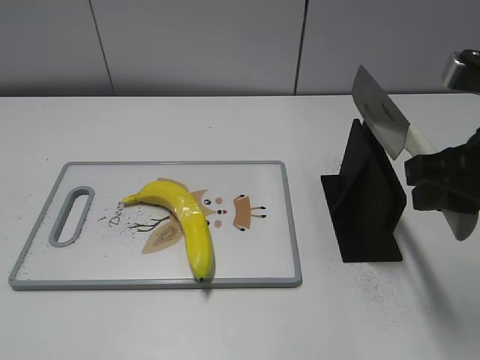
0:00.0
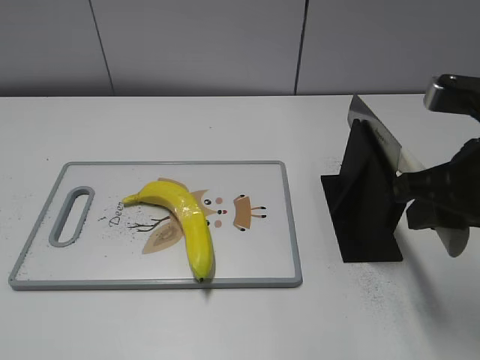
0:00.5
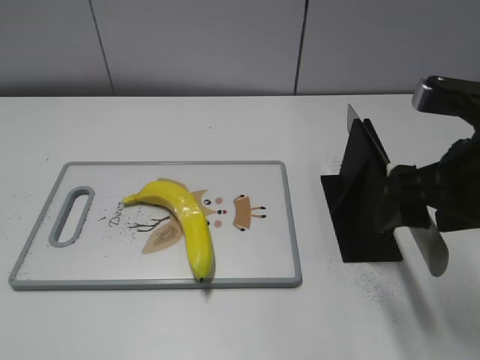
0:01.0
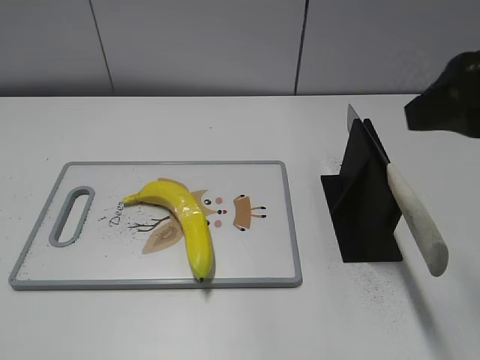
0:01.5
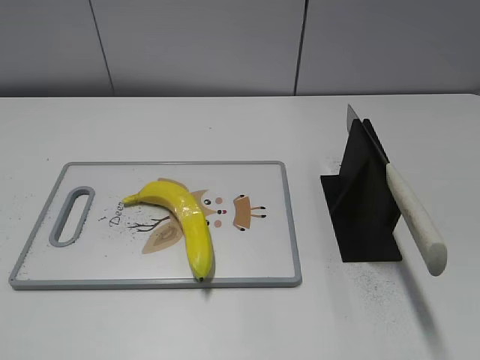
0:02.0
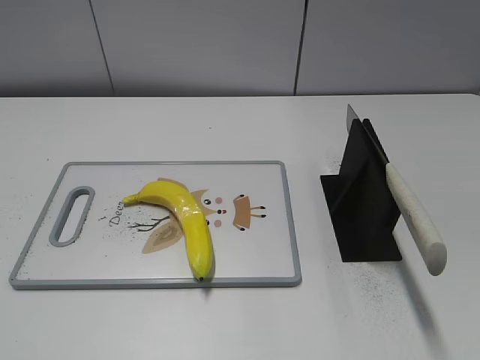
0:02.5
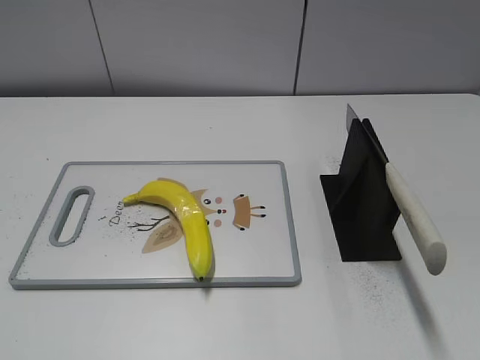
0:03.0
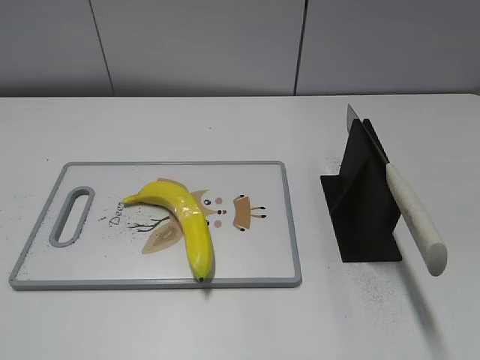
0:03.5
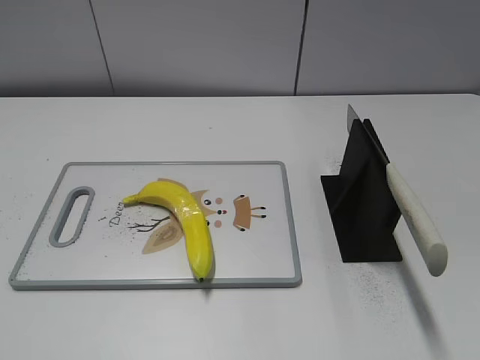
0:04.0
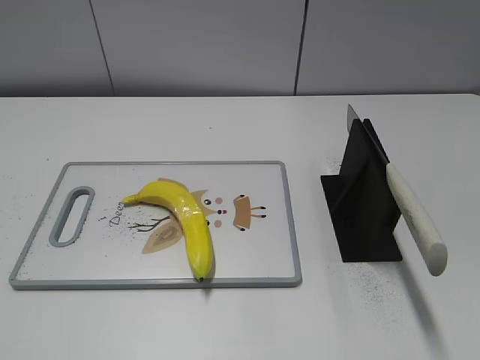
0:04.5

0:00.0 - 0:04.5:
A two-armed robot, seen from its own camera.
Task of the whole recording: cut plastic banana.
Step, 0:00.0 - 0:04.5: Place the knife on the storage rack with your right hand.
0:00.0 - 0:02.0: The right gripper travels backward by roughly 15 cm, and opens.

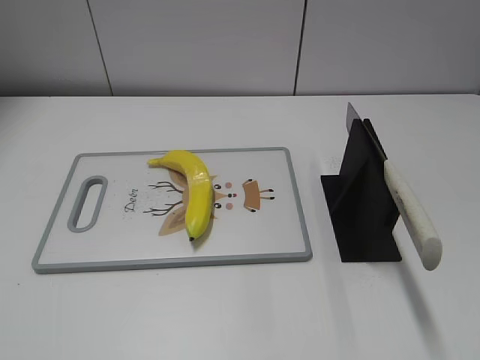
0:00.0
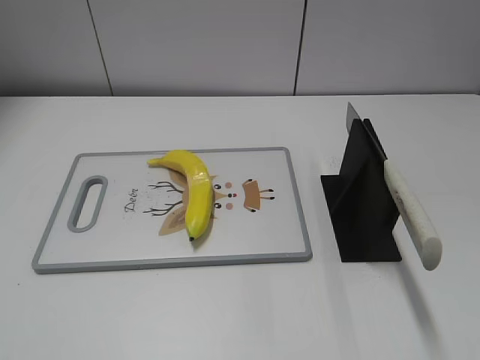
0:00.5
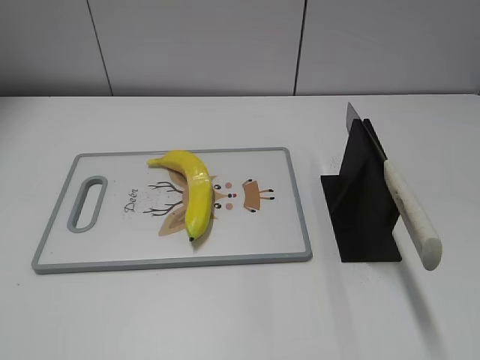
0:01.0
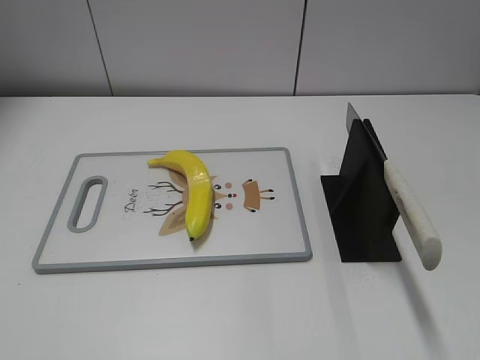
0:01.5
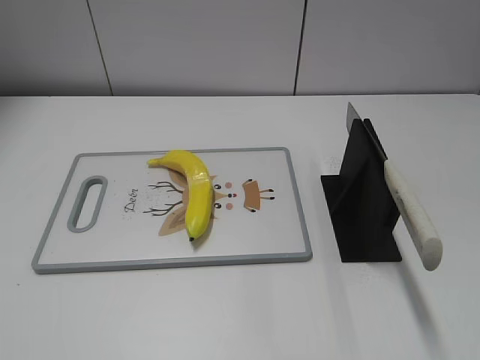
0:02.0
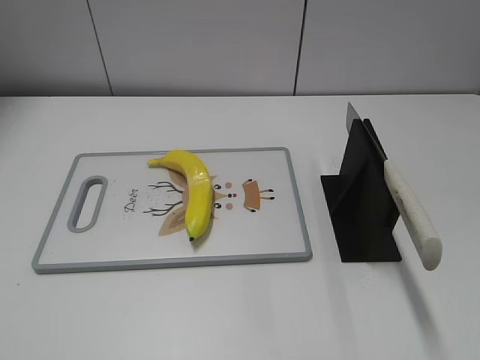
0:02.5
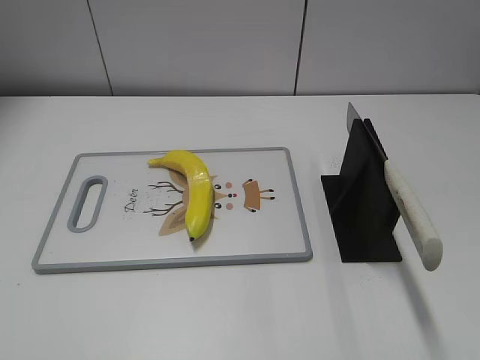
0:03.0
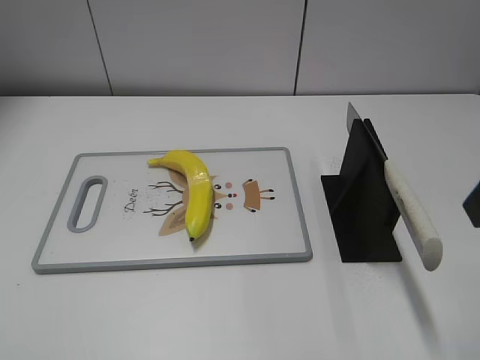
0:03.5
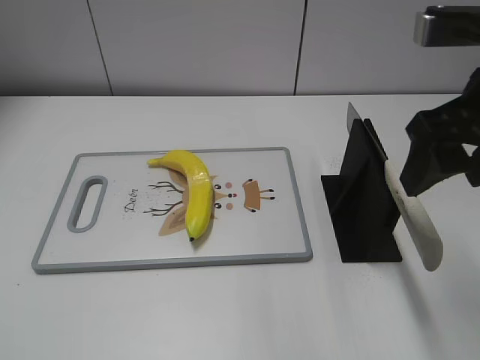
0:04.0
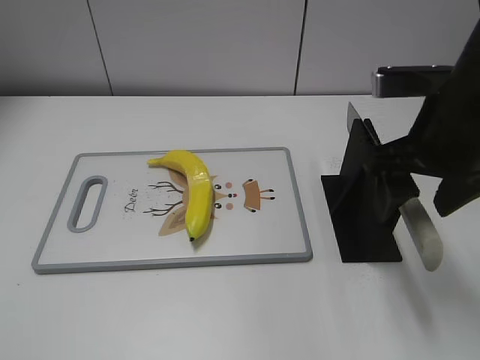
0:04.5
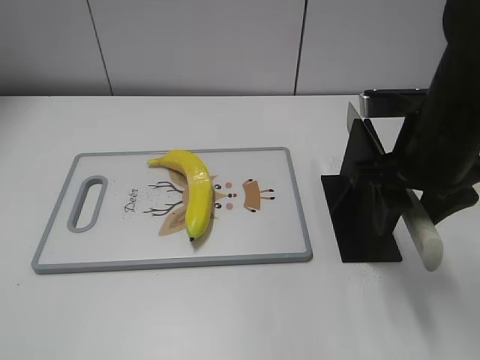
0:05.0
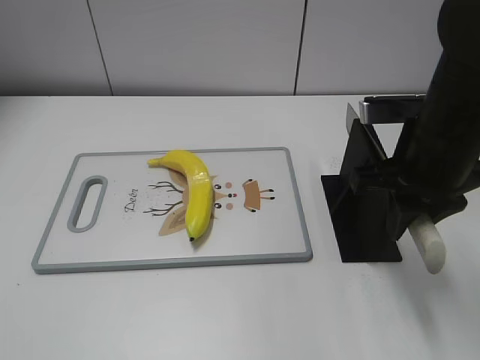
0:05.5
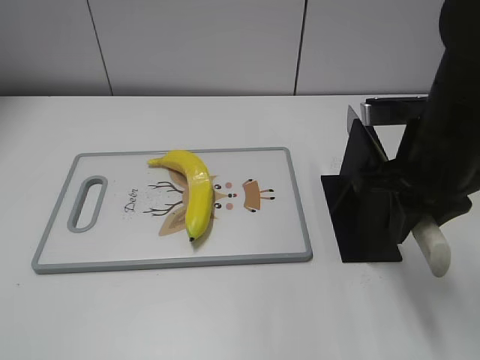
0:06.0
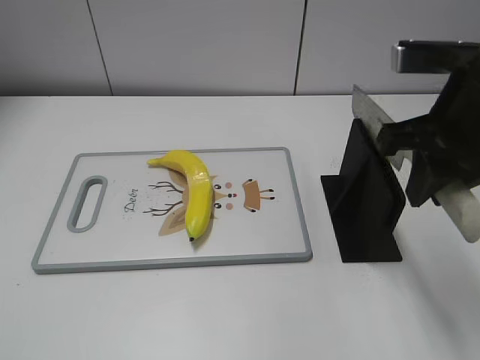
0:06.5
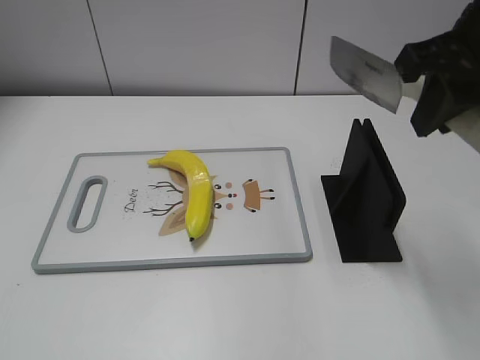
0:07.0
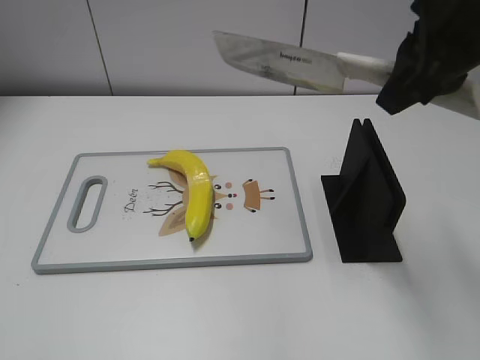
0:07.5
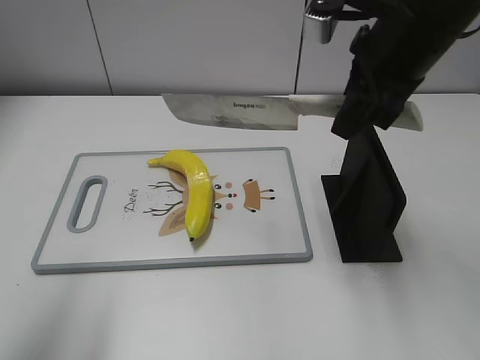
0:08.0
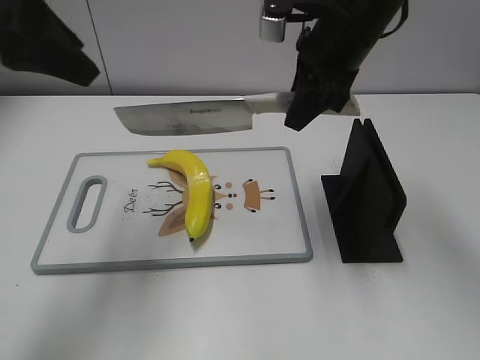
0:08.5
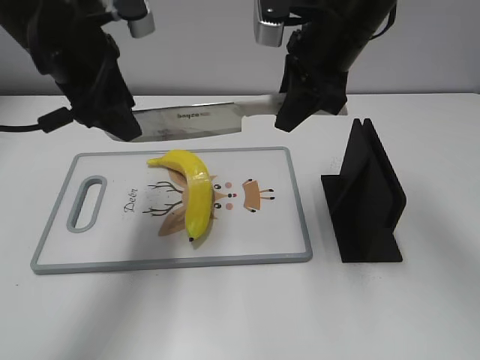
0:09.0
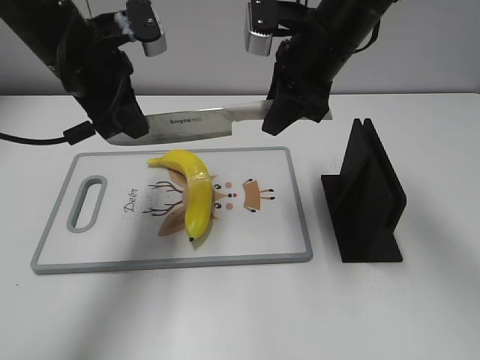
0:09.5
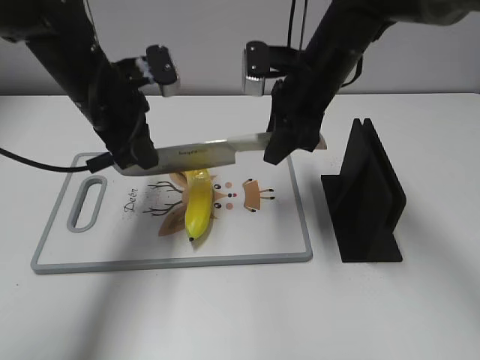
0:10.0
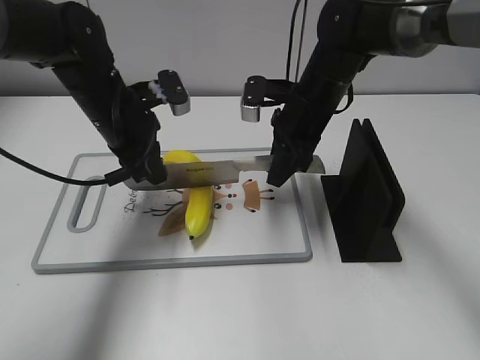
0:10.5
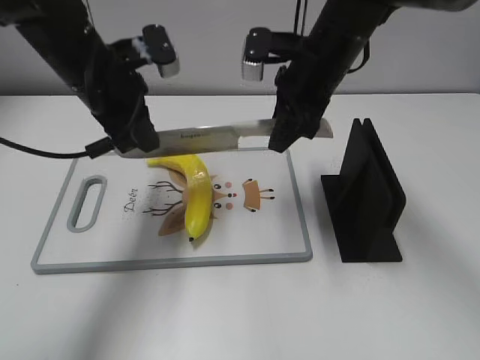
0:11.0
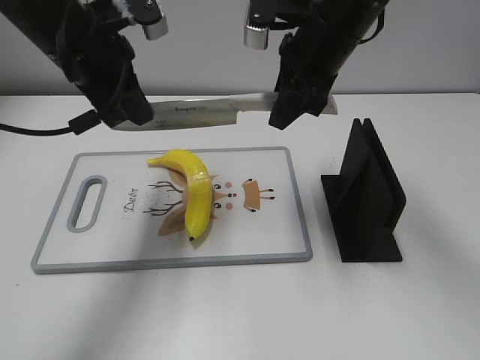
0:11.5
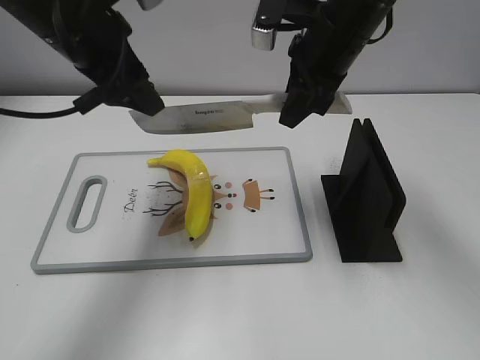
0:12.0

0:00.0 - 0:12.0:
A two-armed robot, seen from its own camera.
Task of the whole recording: cut plastic banana.
Step, 0:00.0 - 0:06.5: Grab the knife handle with your right hand.
Step, 0:07.0 - 0:11.5: Lift the knife with your right hand.
0:02.0 - 0:04.0: The right gripper goes roughly 25 cm forward and to the left.
0:04.0 - 0:06.0: The right gripper heads downward, covering about 10 cm, and closes up.
0:06.0 - 0:08.0: The left gripper goes roughly 20 cm forward and upward; the right gripper travels upward by about 10 cm.
0:08.0 - 0:10.0: The right gripper heads downward, forward and to the left, covering some 15 cm; the left gripper moves forward, downward and to the right, approximately 30 cm, and closes.
0:10.0 - 0:12.0: The grippers both shift upward by roughly 5 cm. The left gripper opens its fingers.

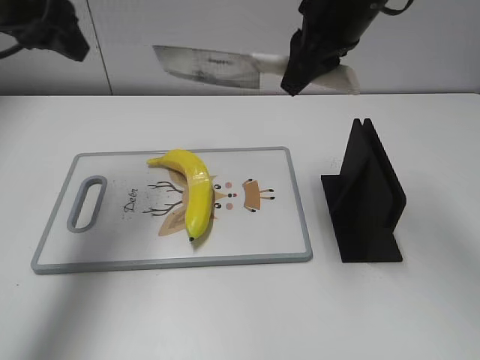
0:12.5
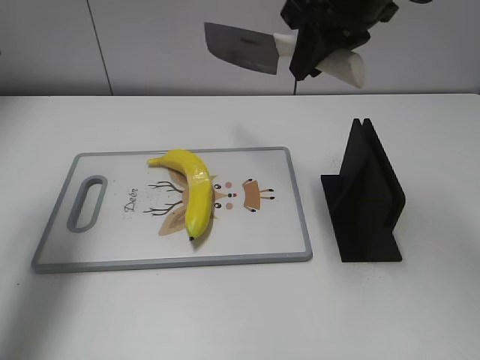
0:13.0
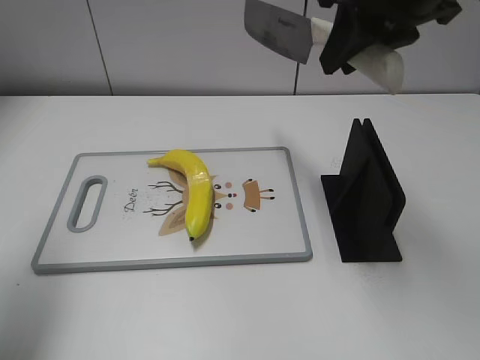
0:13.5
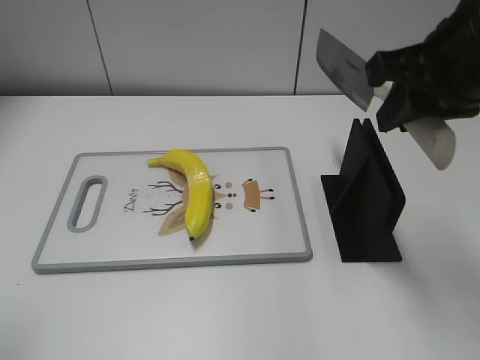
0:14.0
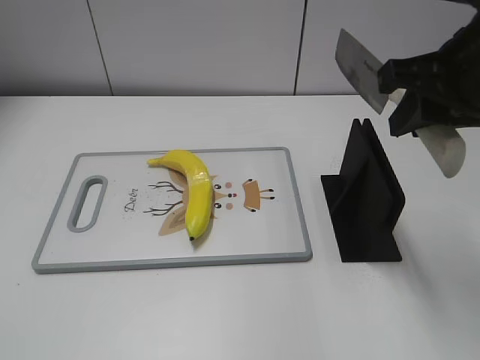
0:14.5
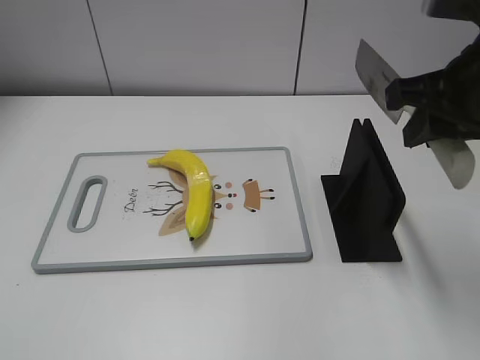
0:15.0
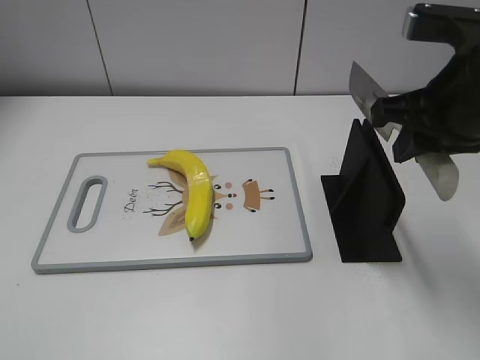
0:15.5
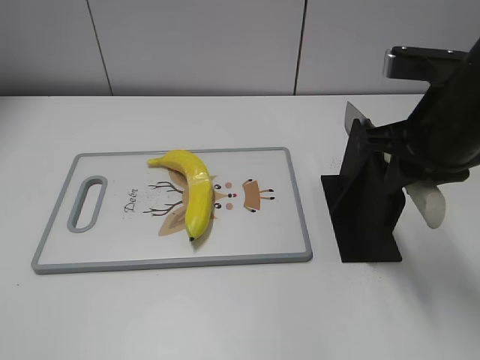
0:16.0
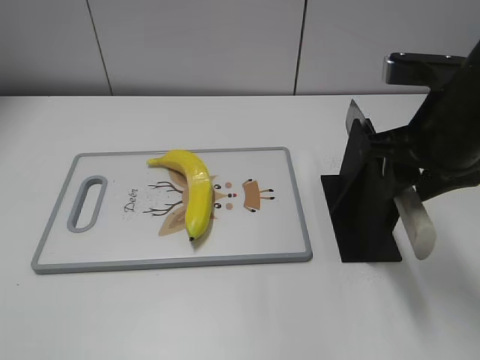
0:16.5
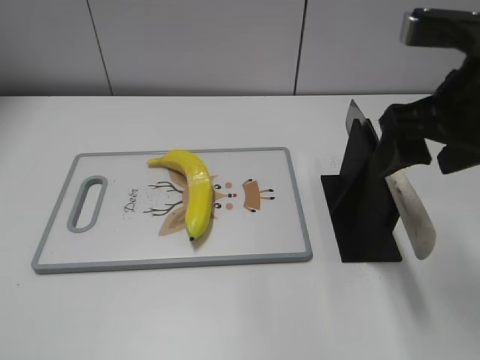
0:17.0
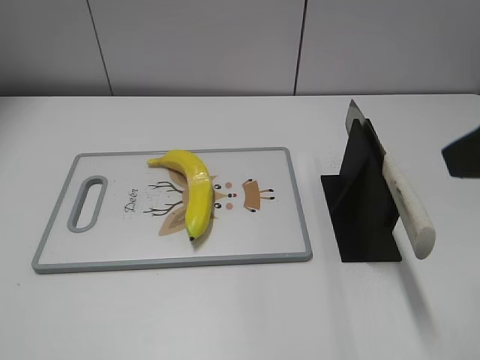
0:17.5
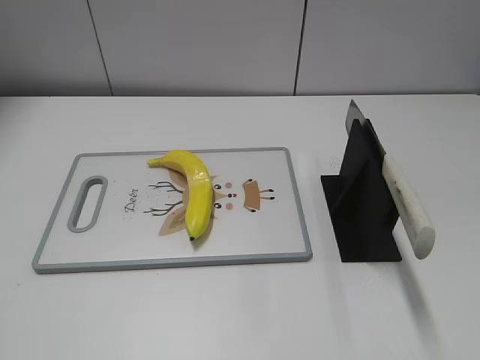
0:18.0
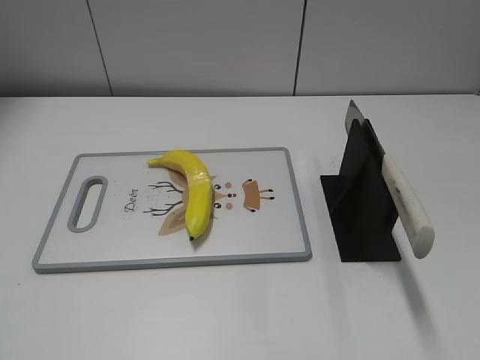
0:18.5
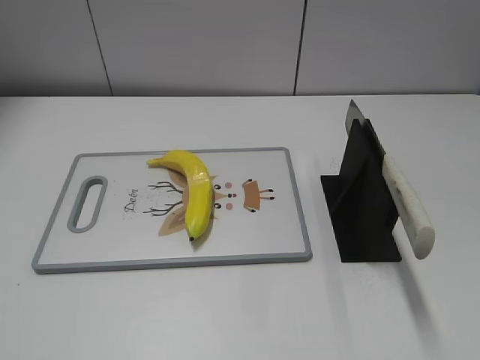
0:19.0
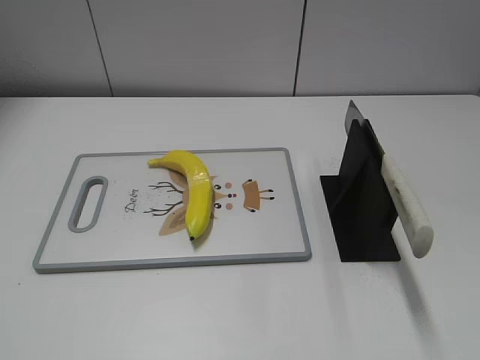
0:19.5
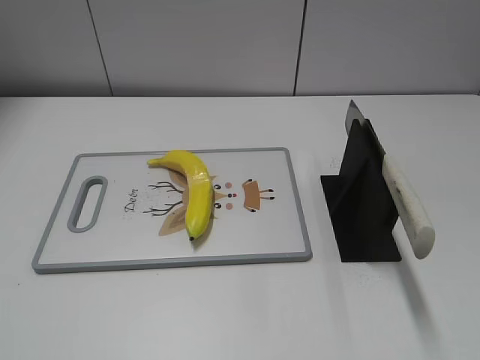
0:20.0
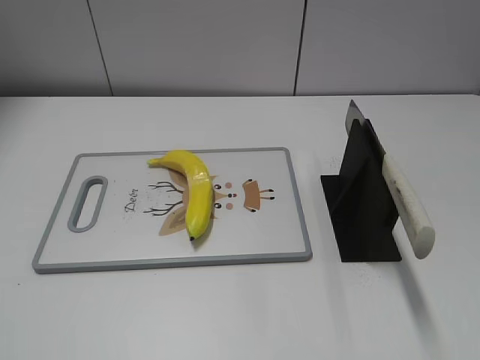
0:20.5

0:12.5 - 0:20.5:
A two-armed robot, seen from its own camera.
Task of the whole recording: cut plastic banana.
Step, 0:13.5 - 0:14.5: Secure the blade with your left hand.
Step, 0:15.0 - 0:20.5: Place the knife on the storage rack with your right hand.
0:12.5 - 0:14.5: The left gripper travels backward by approximately 35 cm; the right gripper goes about 15 cm backward and to the right.
0:14.5 - 0:16.5: The right gripper is displaced downward by some 5 cm.
0:16.5 - 0:18.5: The right gripper goes approximately 30 cm backward and to the right, and opens its fingers.

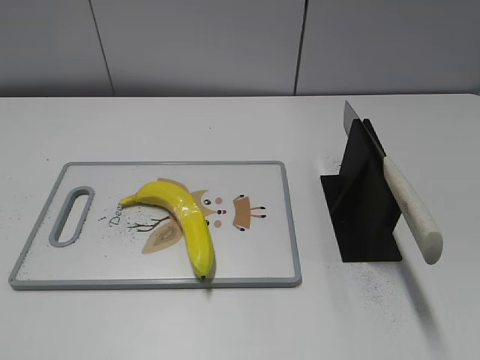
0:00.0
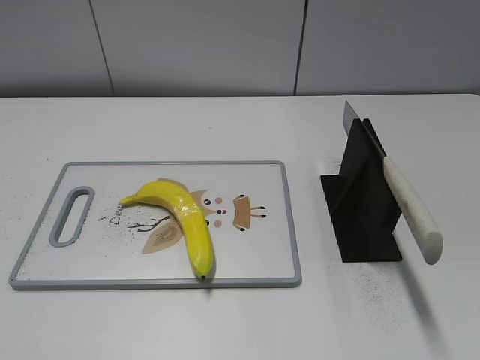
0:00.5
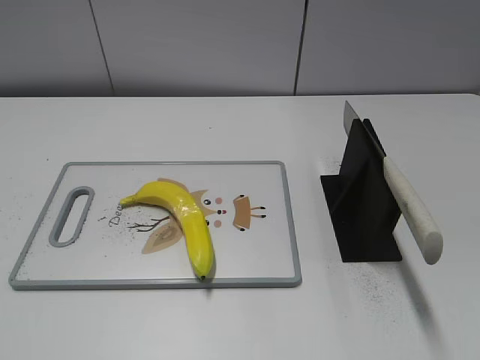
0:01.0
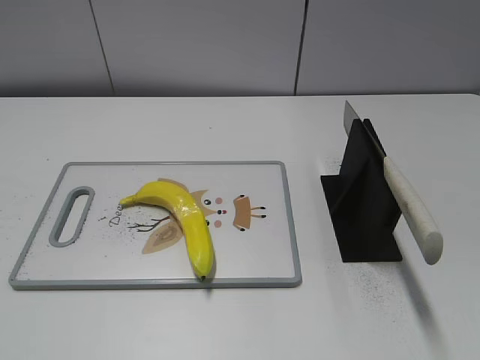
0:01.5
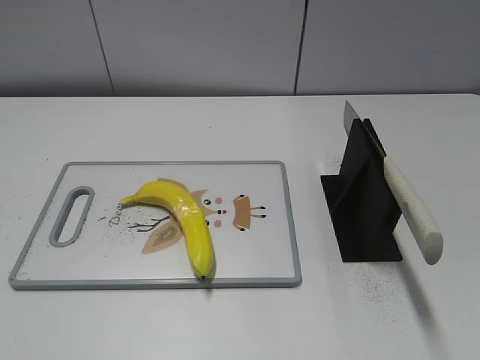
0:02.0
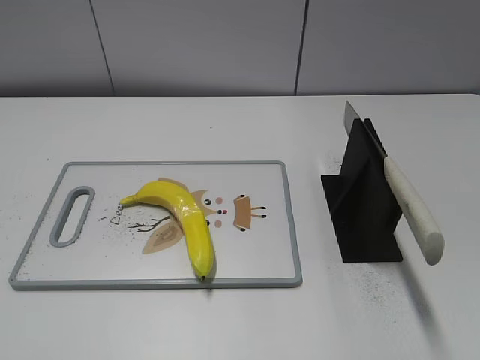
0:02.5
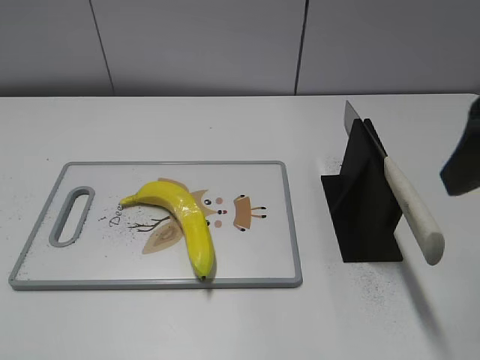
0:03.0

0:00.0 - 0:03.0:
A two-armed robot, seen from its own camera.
Task of the whole recording: cut plastic banana.
0:01.5 - 0:03.0: The right gripper goes approximately 20 cm forward and to the left.
